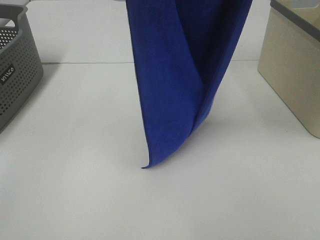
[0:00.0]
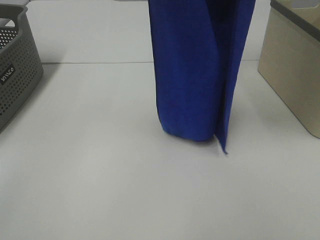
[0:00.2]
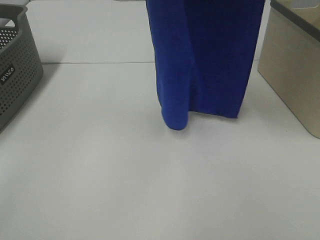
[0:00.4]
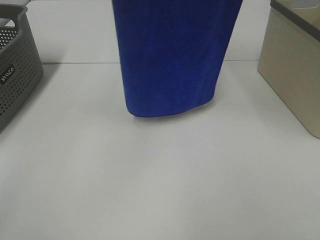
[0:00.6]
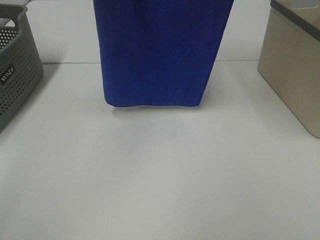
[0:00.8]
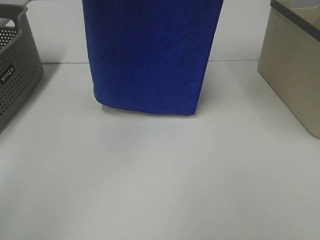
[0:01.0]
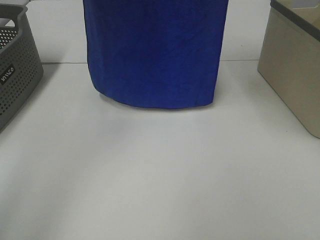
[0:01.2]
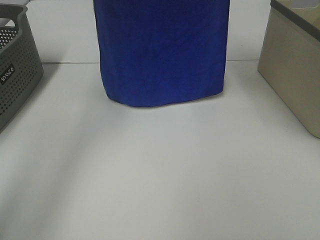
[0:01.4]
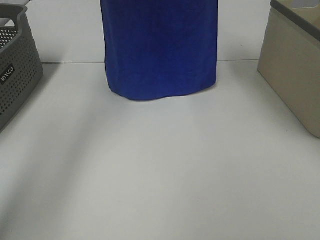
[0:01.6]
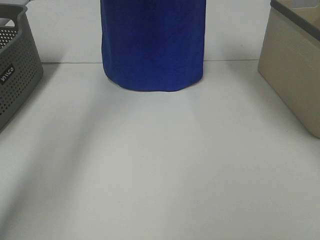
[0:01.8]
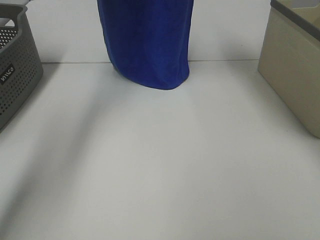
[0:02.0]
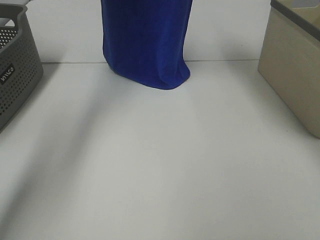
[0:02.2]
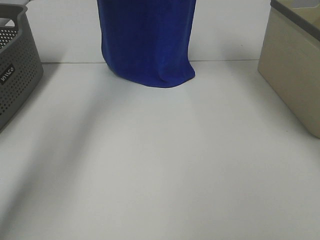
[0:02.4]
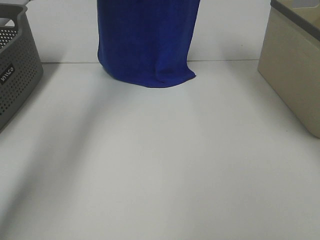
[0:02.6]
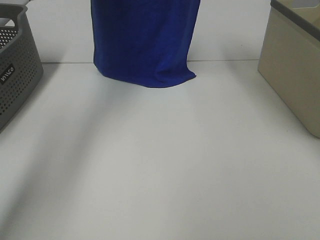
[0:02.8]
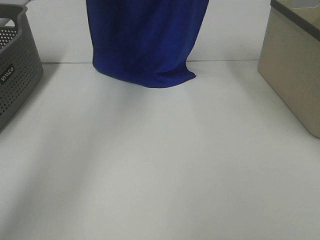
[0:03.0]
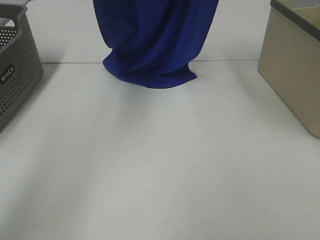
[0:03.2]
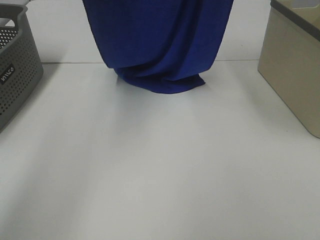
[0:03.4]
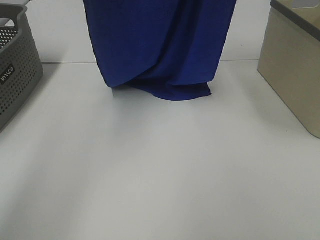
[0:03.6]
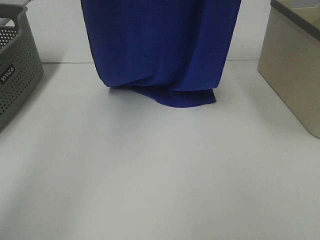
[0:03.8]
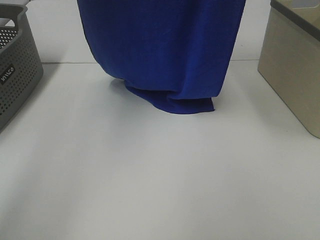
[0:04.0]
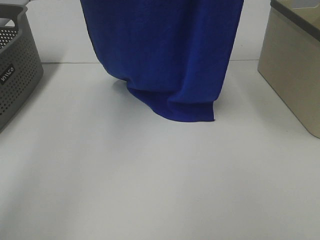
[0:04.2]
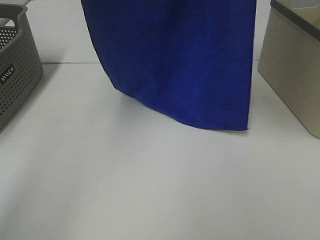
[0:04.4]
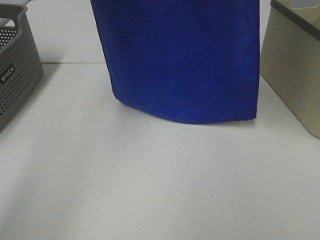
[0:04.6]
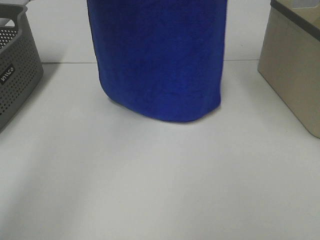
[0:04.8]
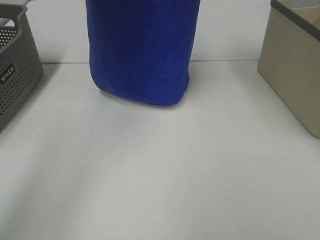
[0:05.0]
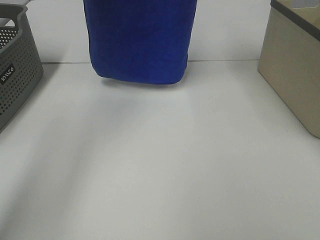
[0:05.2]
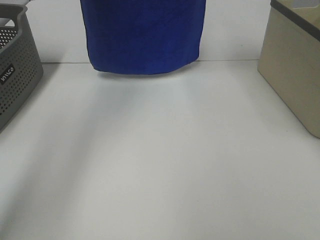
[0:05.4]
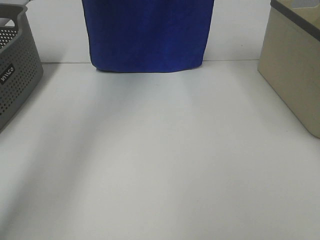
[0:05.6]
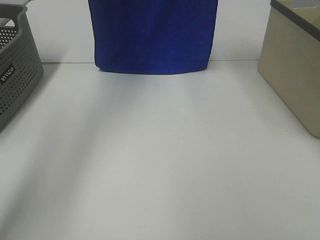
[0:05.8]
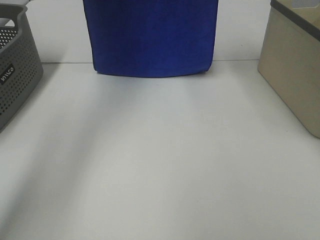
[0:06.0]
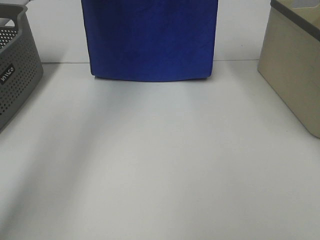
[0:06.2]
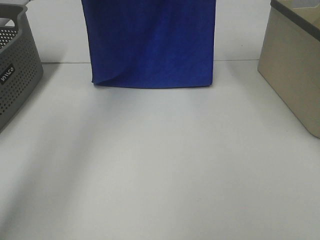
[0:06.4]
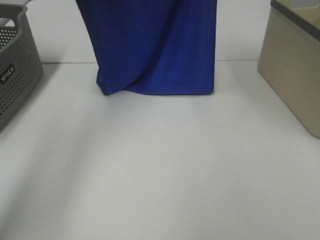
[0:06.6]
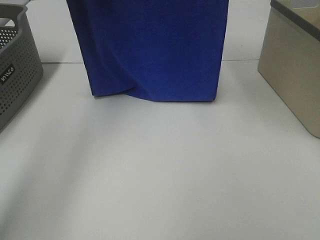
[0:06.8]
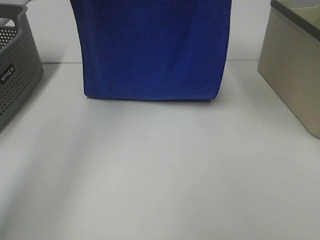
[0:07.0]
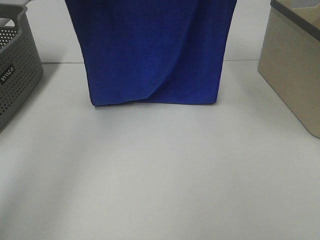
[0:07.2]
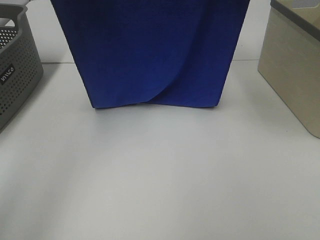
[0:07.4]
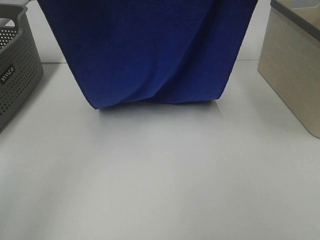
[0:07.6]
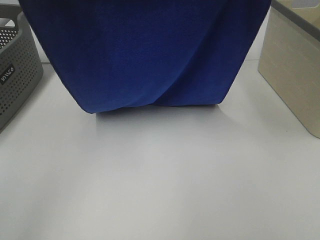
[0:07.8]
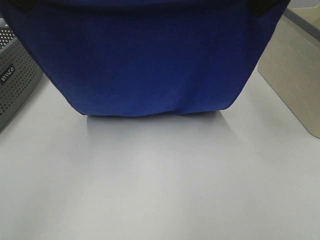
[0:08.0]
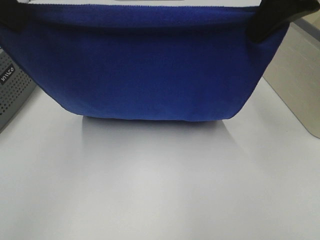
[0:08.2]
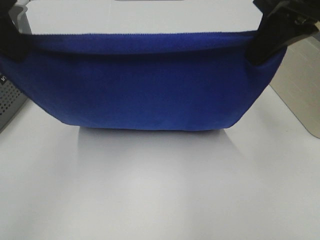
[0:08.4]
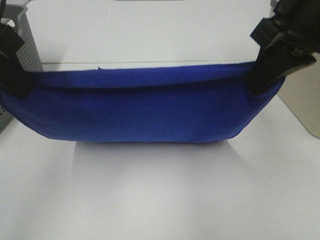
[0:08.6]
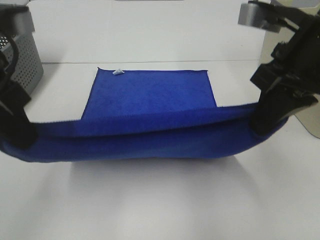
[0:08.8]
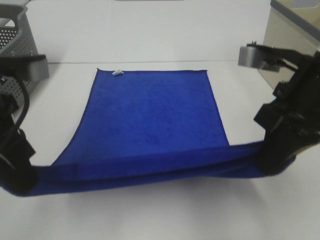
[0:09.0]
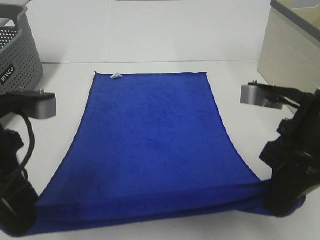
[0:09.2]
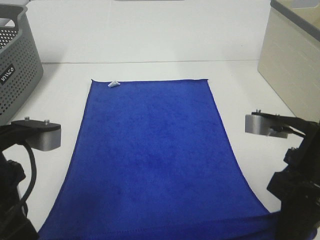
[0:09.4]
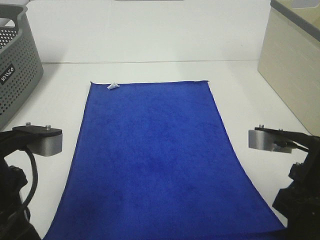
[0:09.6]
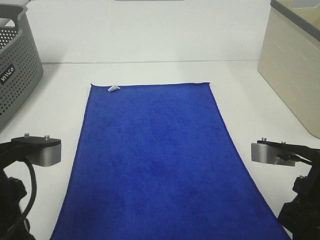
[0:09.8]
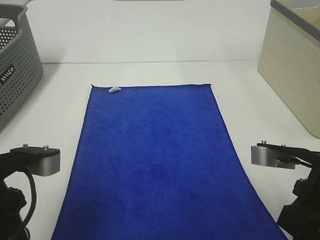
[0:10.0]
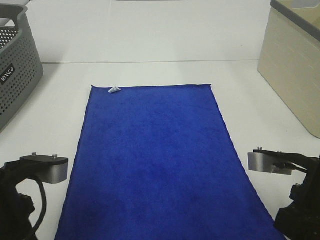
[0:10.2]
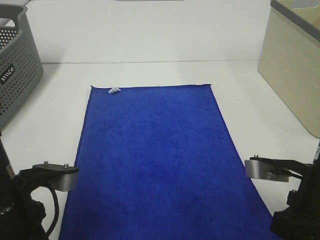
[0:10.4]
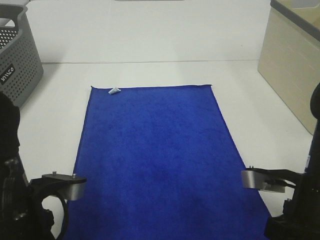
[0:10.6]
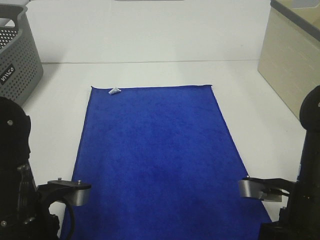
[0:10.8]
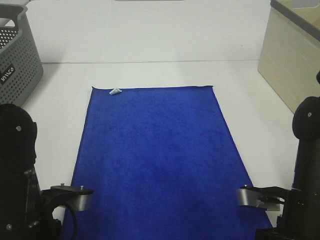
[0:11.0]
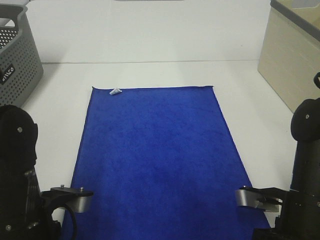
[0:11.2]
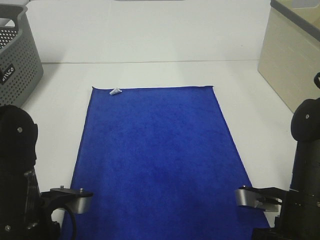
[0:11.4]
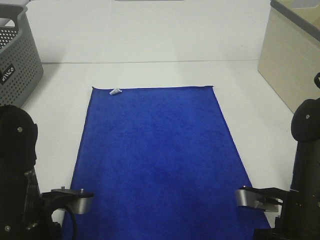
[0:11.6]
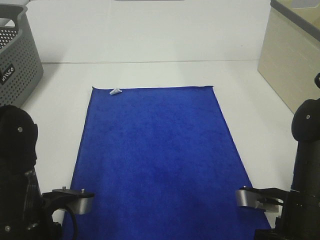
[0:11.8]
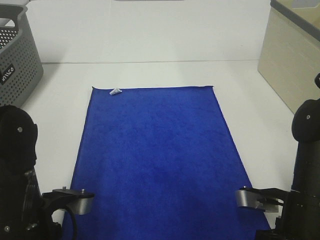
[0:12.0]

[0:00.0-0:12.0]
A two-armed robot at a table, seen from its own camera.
Task of the whole recording: Remove the towel and place it.
Step, 0:00.0 to 0:06.6: Left hand: spread the blue towel flat on the table.
Step, 0:00.0 to 0:06.6: Right hand: spread the blue towel flat on the table.
0:00.0 to 0:01.6: Both grippers travel together forward, about 15 cm.
0:03.0 to 0:04.4: Both grippers move backward and upward, approximately 10 cm.
0:04.4 to 0:06.0: The grippers both shift forward and downward by roughly 15 cm.
0:06.0 to 0:07.6: The grippers both shift backward by approximately 15 cm.
0:07.6 to 0:09.0: Both grippers move downward and backward, some 20 cm.
0:09.0 to 0:10.4: The left gripper travels downward by about 10 cm; the right gripper heads downward and backward, covering roughly 10 cm.
0:10.4 to 0:12.0: The right gripper heads downward, covering about 5 cm.

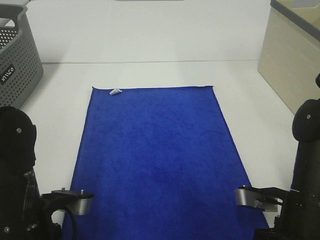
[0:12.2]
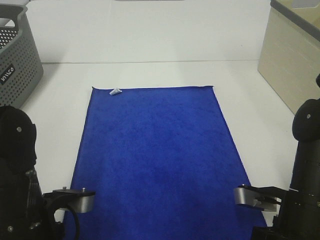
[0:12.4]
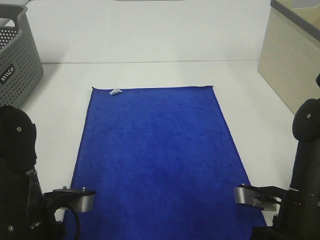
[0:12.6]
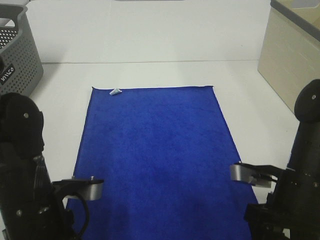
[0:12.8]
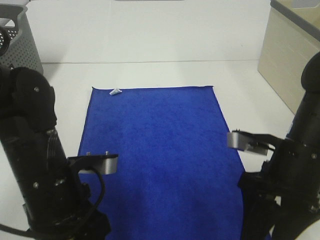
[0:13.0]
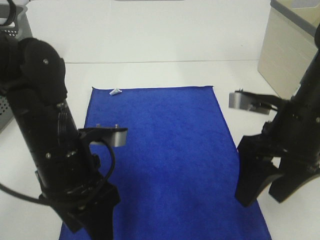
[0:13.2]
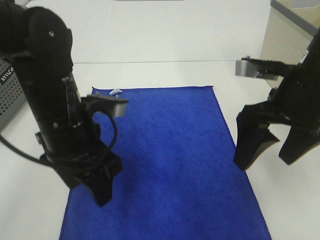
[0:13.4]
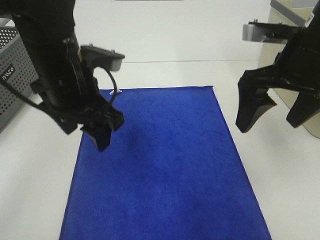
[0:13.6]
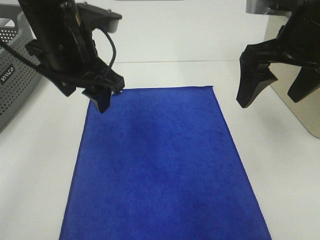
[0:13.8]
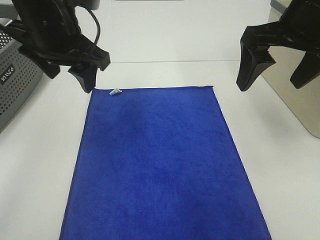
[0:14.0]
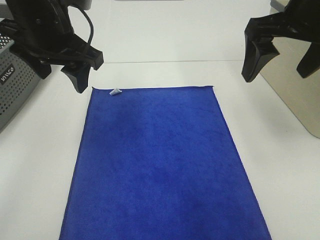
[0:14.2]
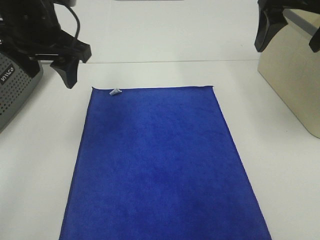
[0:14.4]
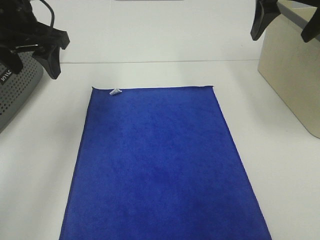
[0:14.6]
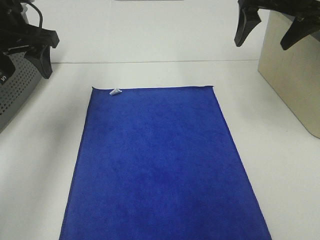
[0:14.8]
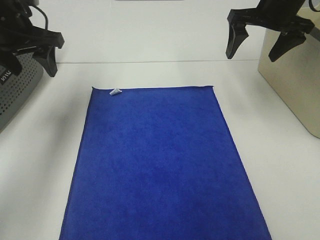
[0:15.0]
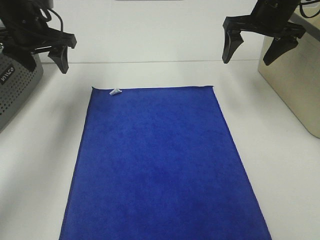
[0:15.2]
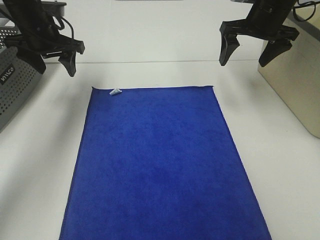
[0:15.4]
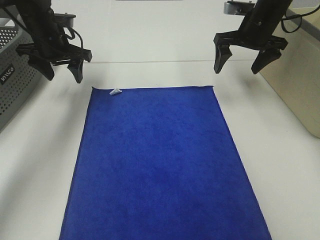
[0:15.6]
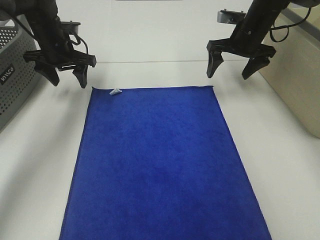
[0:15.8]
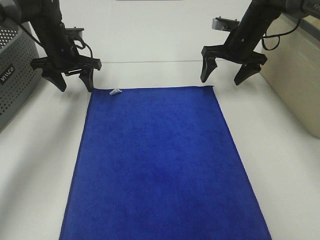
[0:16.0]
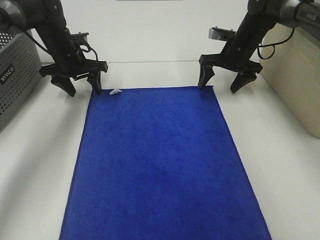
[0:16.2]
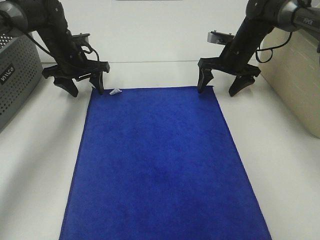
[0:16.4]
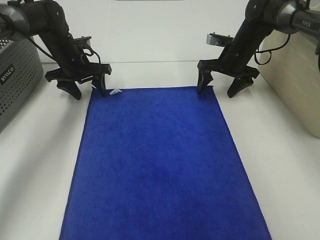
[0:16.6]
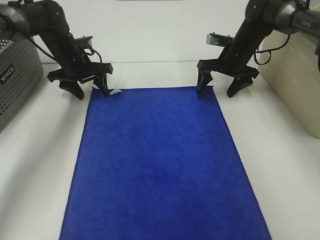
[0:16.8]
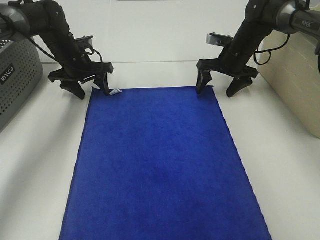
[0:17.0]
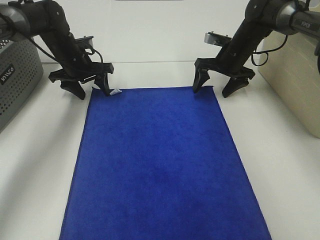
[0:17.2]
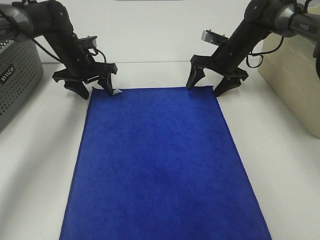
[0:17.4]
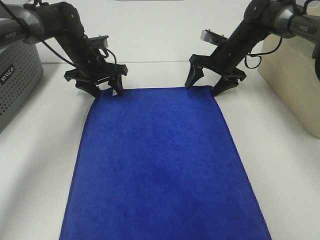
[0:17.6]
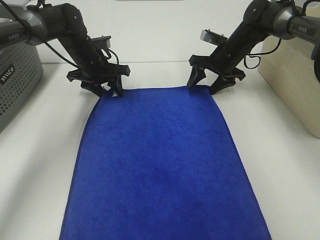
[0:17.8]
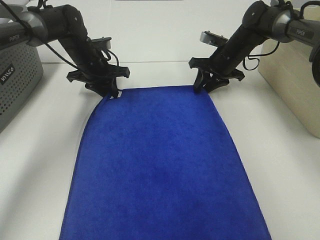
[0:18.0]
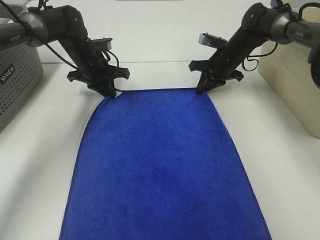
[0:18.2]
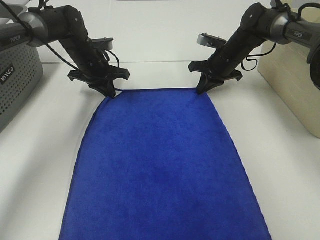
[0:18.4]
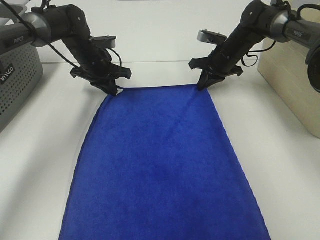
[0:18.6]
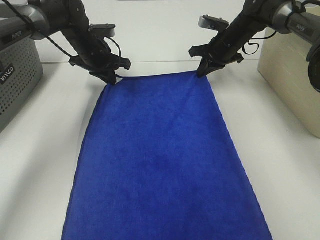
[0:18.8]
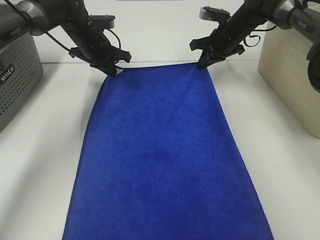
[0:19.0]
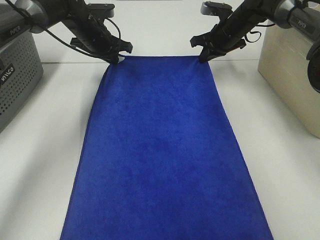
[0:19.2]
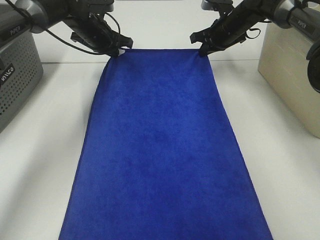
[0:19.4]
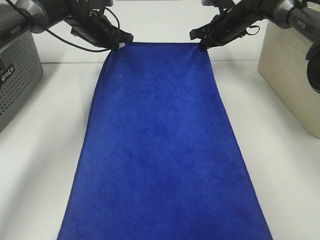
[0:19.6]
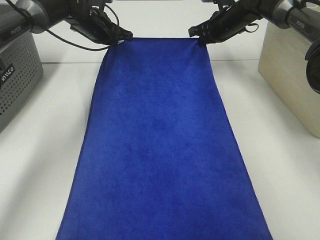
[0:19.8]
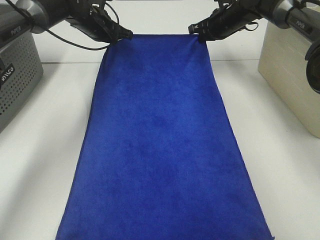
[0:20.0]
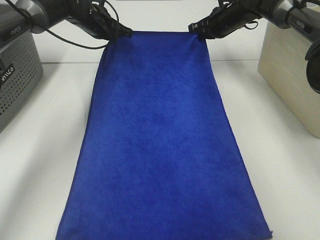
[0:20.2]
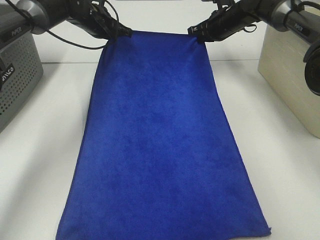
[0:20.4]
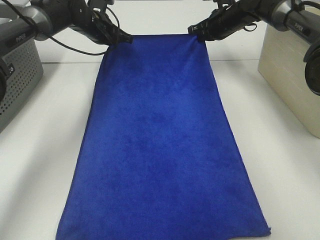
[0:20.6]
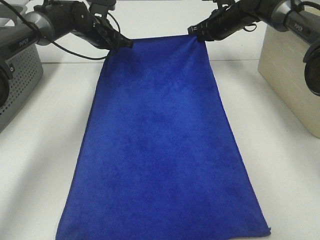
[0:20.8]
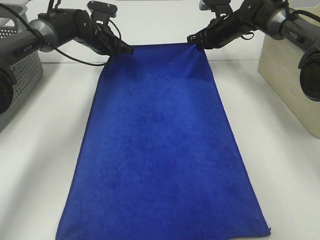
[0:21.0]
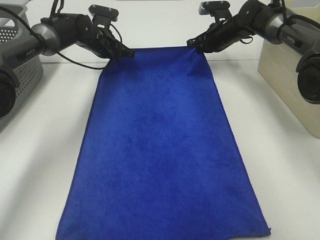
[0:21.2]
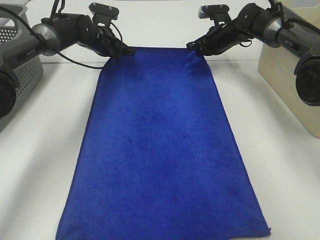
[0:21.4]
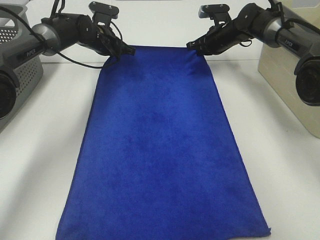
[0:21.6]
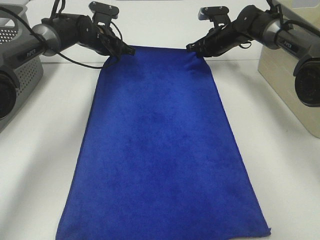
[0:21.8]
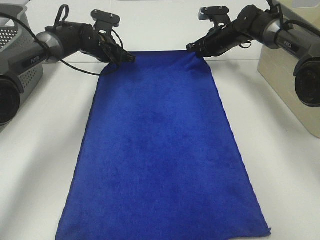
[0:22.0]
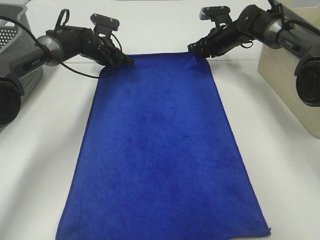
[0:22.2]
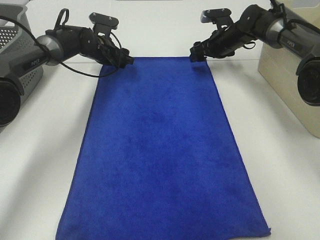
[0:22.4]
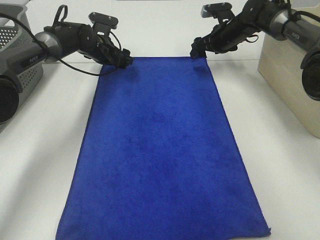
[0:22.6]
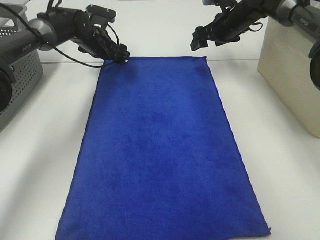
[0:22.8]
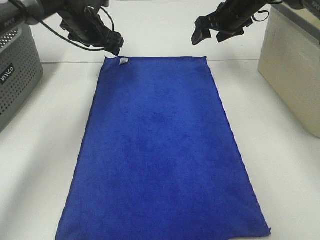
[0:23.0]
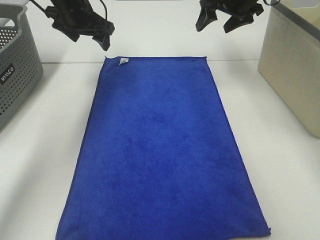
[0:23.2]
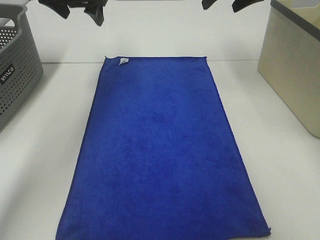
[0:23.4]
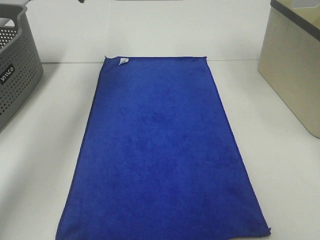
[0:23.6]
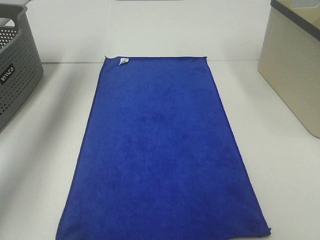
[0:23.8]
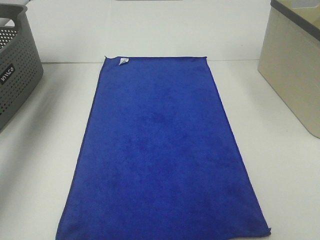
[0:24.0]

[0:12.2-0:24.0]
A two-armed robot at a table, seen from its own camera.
Task of the whole recording: Remove the towel and place it.
Step, 0:12.2 to 0:14.8: Left hand:adjust the blue towel.
Step, 0:12.2 to 0:14.8: Right hand:adjust the blue towel.
0:12.2 to 0:13.6: The right gripper moves upward and forward, about 20 cm, and opens up. The left gripper goes about 20 cm forward and upward, and opens its fingers.
0:13.6 to 0:15.2: The left gripper is displaced forward and to the left by roughly 20 cm. Meanwhile the right gripper travels forward by approximately 20 cm.
0:15.2 to 0:16.6: Both grippers travel together downward and forward, approximately 15 cm.
0:16.6 to 0:18.2: The left gripper closes, while the right gripper closes its fingers.
0:18.2 to 0:19.6: The grippers both shift upward by some 5 cm.
0:19.6 to 0:21.0: The grippers stay close to where they were, moving slightly.
0:21.0 to 0:22.6: The right gripper opens its fingers. Meanwhile the left gripper opens.
0:22.6 to 0:24.0: The left gripper goes roughly 35 cm upward and to the left. The right gripper heads upward and backward, covering approximately 30 cm.
